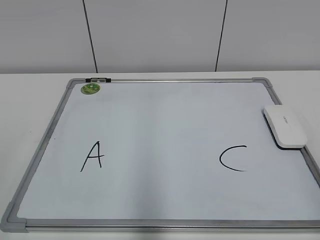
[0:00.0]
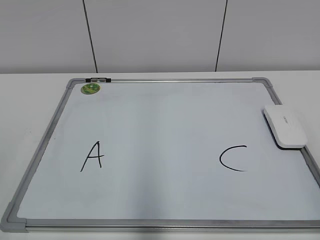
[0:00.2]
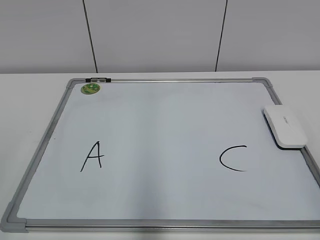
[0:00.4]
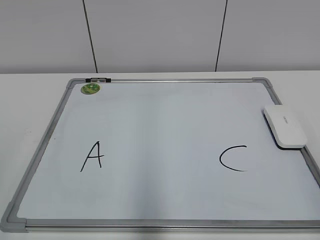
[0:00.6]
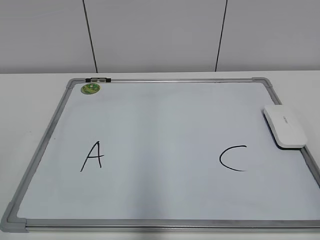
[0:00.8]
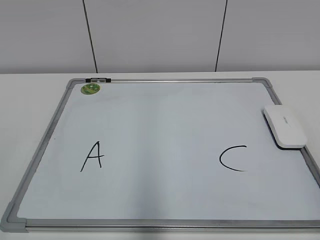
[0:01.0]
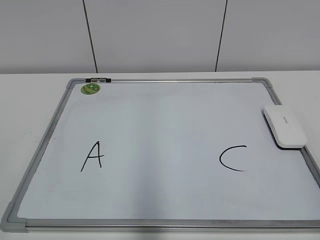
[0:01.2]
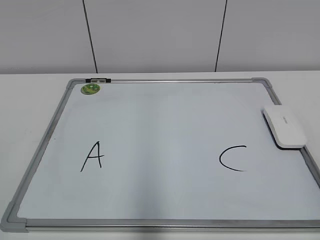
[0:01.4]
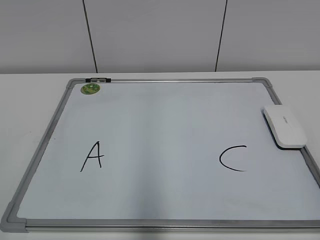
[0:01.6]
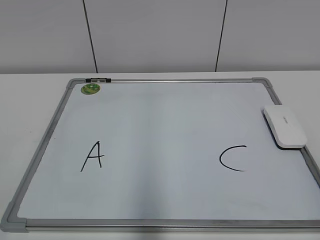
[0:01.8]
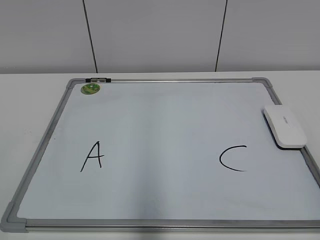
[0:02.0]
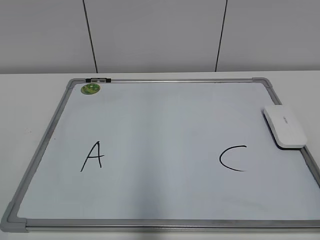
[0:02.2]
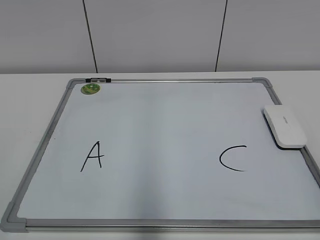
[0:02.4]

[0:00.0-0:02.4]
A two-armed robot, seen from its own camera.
Task of the whole recording: pick up the eraser on the blackboard and erase the letter "B".
0:01.2 to 0:02.4: Both grippers stay about where they are.
